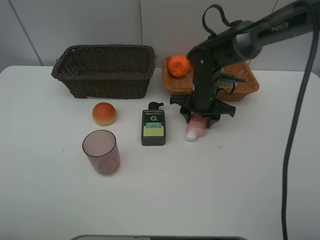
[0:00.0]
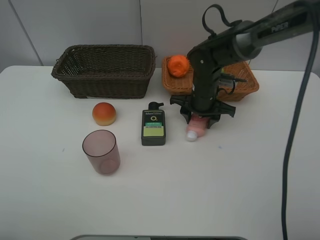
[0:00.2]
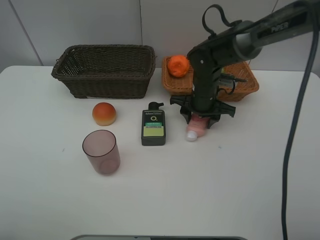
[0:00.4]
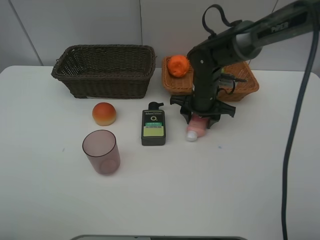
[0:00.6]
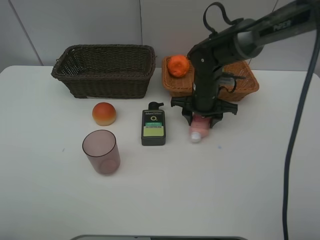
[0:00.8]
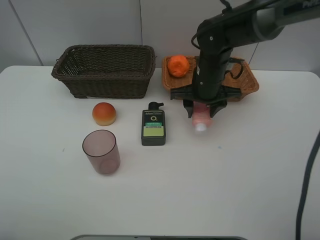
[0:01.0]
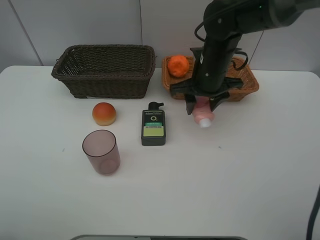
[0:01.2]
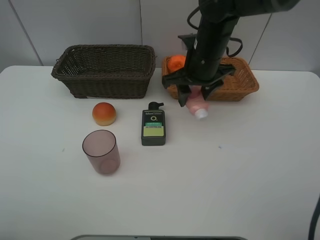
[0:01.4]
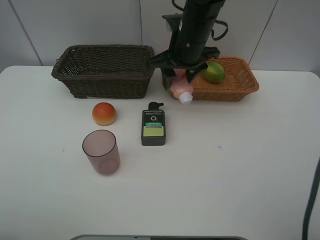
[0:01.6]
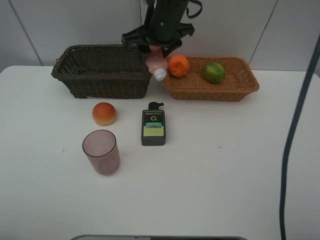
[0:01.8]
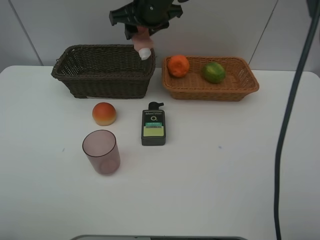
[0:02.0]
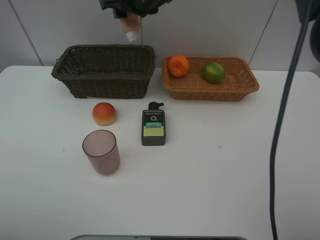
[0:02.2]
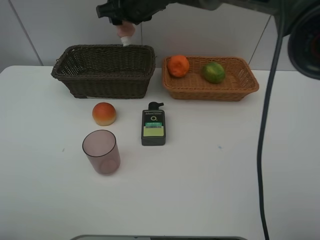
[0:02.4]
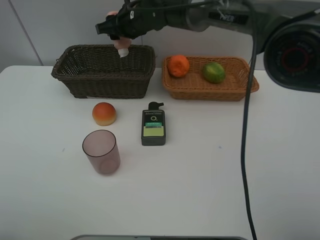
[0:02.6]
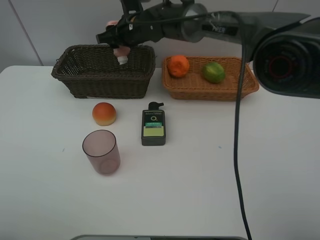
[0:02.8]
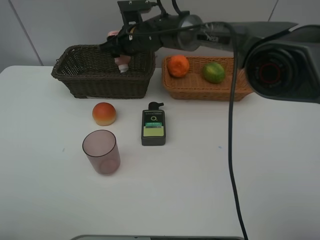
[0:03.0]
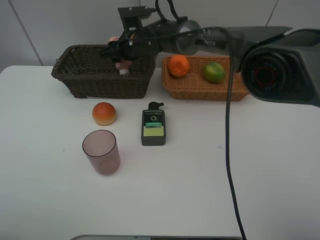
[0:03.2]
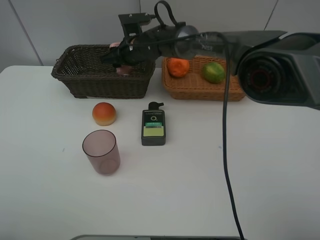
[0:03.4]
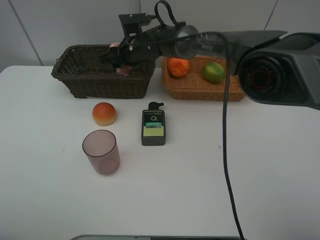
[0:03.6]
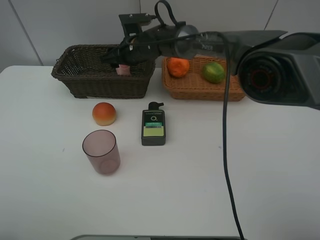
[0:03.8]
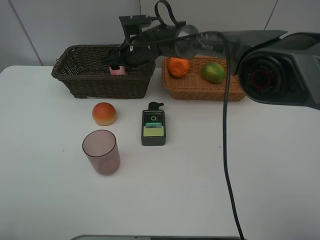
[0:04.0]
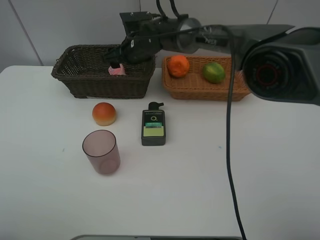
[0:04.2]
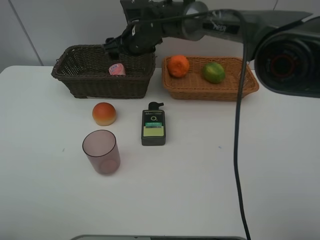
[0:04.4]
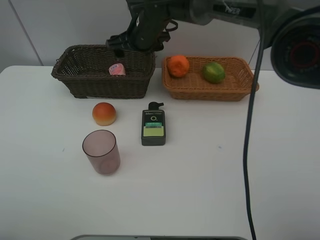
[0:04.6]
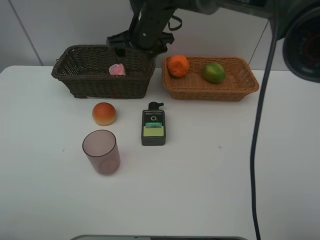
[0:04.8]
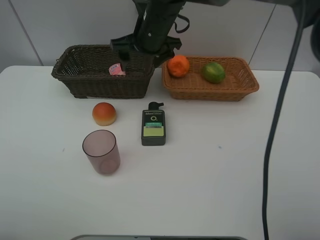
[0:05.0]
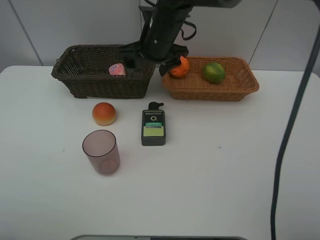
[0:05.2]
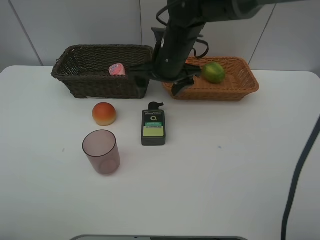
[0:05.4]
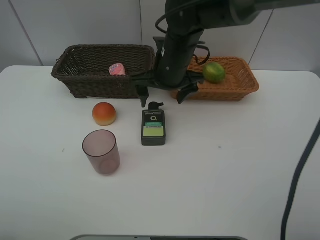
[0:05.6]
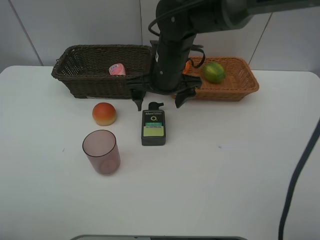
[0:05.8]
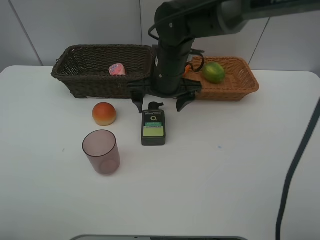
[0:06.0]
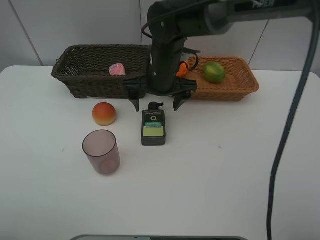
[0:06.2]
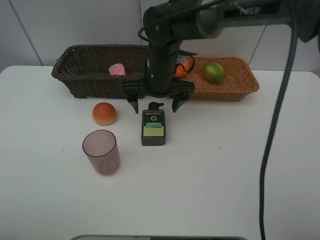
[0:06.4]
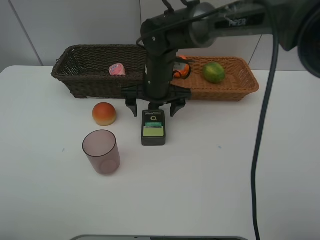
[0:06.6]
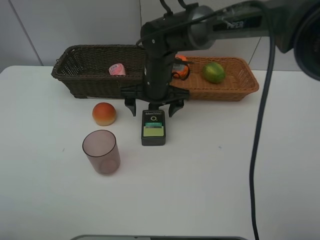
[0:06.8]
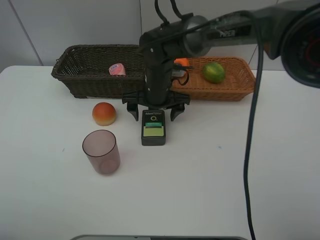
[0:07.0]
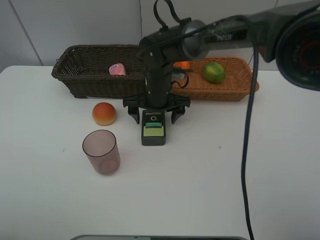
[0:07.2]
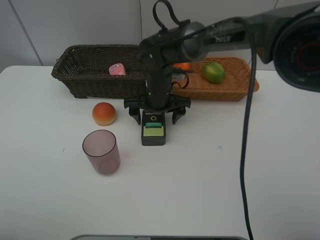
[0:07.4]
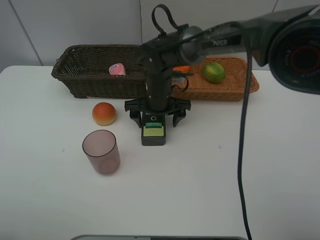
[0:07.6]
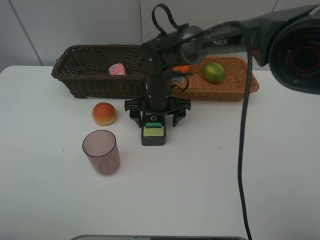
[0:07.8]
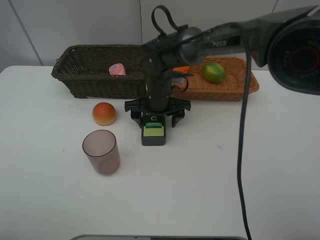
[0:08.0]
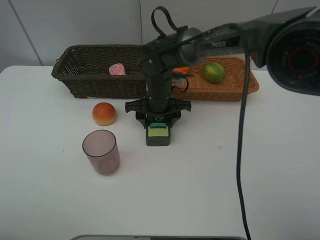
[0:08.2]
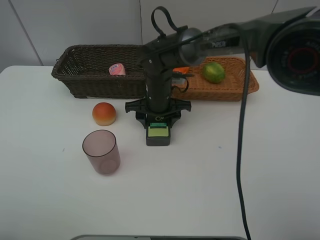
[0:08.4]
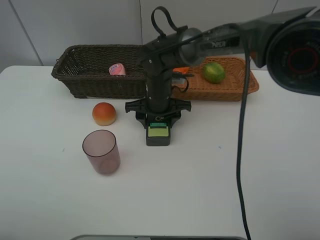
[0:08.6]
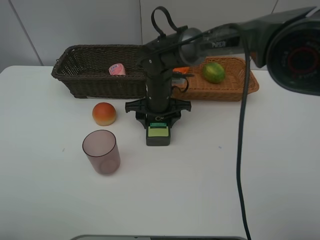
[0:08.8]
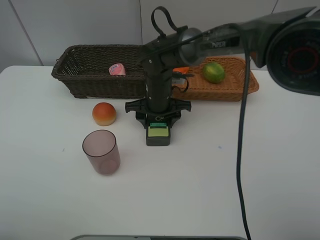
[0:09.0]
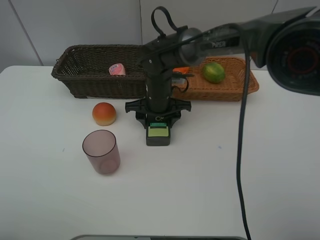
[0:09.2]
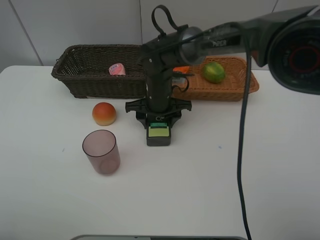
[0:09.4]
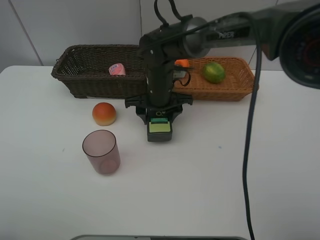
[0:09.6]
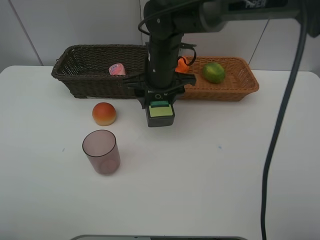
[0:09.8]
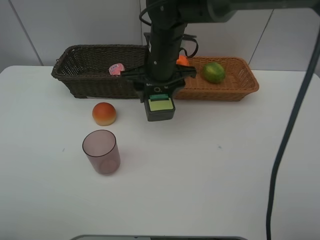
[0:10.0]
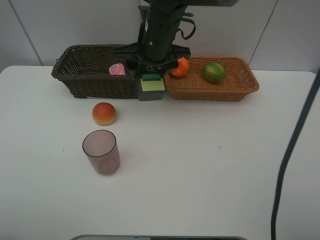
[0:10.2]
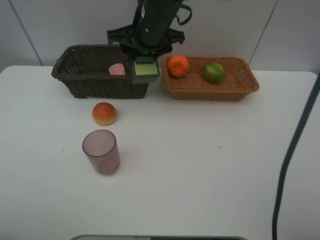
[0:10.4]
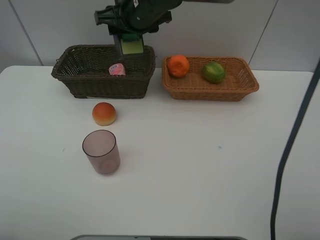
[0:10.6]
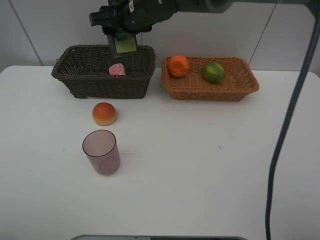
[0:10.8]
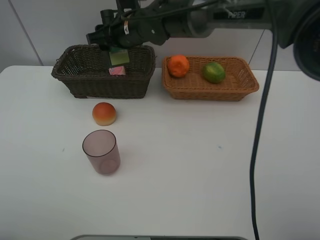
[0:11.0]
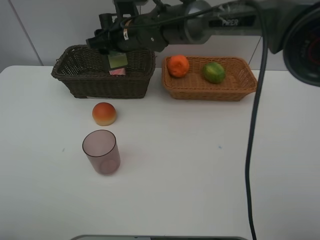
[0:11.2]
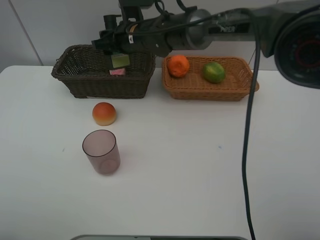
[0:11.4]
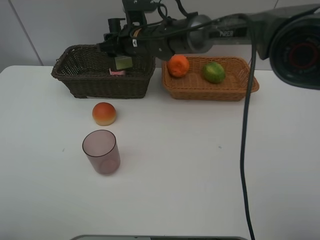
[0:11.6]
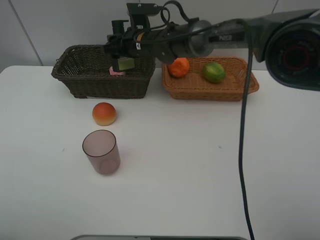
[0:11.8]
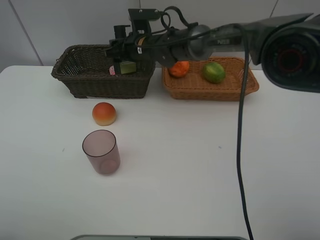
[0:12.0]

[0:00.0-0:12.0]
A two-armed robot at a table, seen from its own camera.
Task of the whole recording: place multiple objects separately in different baskets.
0:00.0 to 0:01.6: The right gripper heads upward and to the left, covering about 15 cm.
0:01.6 to 0:03.0: The right gripper travels to the left, forward and downward by approximately 15 cm.
0:03.0 to 0:04.4: The right gripper opens its fingers.
0:04.4 to 0:06.0: The right gripper heads backward and to the right, covering approximately 15 cm.
0:06.0 to 0:07.6: The right gripper travels downward by roughly 5 cm.
0:07.6 to 0:09.0: The right gripper closes up.
0:09.0 to 0:10.4: The right gripper travels upward by approximately 15 cm.
0:10.4 to 0:12.0: The right gripper moves downward and forward, approximately 15 cm.

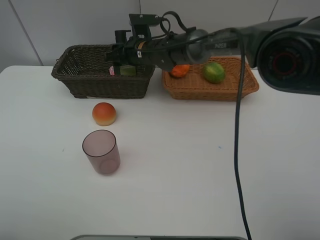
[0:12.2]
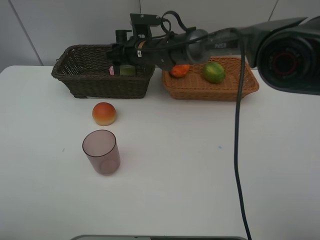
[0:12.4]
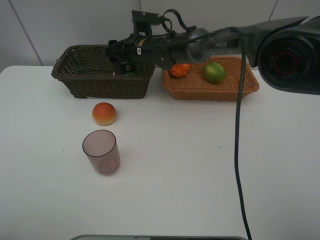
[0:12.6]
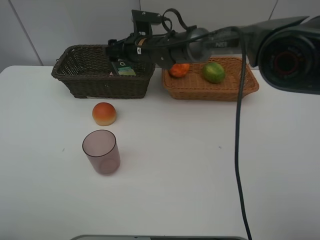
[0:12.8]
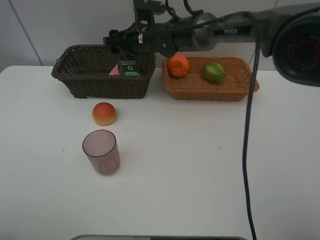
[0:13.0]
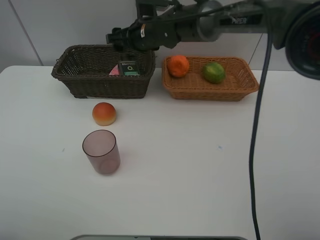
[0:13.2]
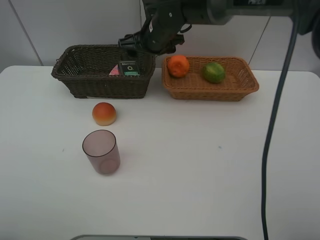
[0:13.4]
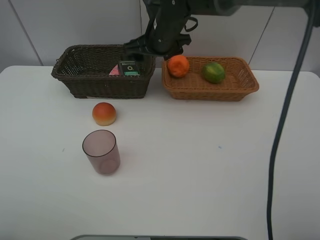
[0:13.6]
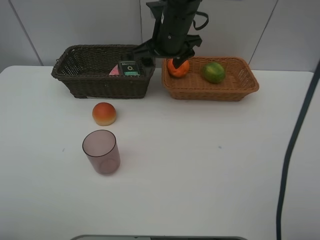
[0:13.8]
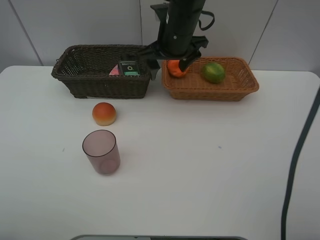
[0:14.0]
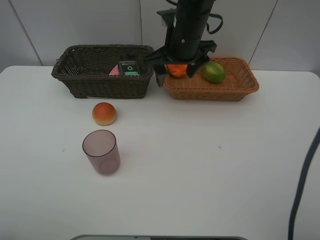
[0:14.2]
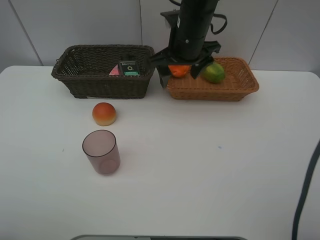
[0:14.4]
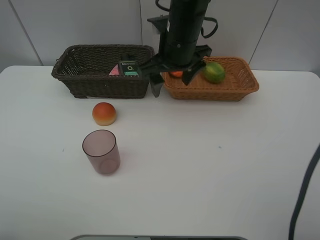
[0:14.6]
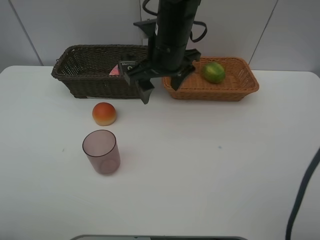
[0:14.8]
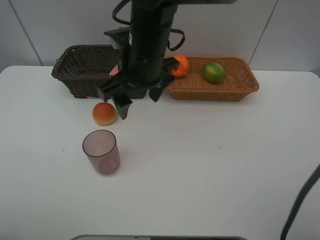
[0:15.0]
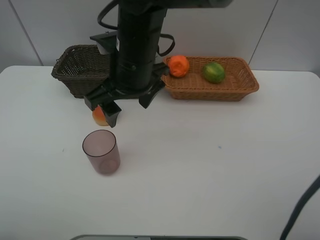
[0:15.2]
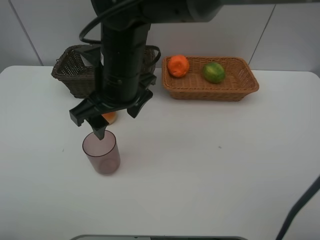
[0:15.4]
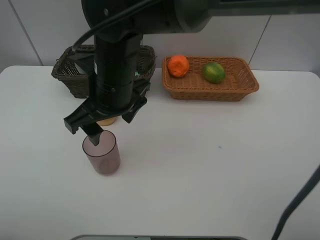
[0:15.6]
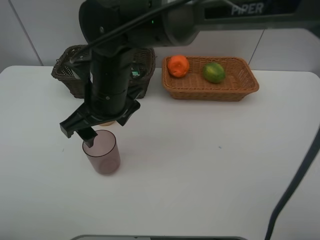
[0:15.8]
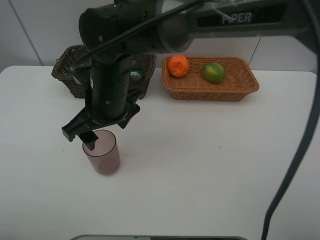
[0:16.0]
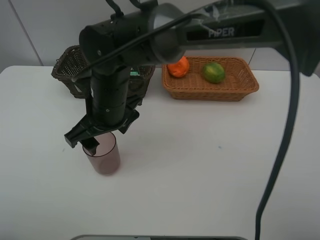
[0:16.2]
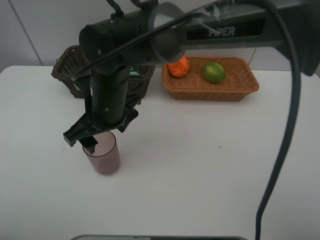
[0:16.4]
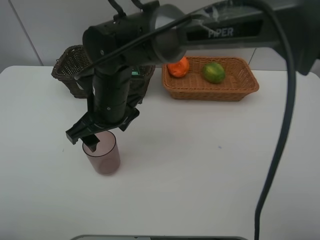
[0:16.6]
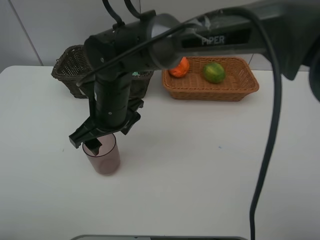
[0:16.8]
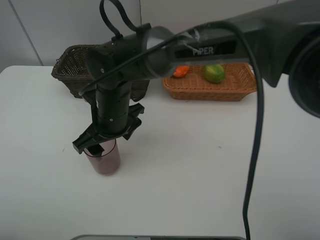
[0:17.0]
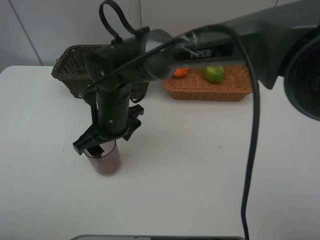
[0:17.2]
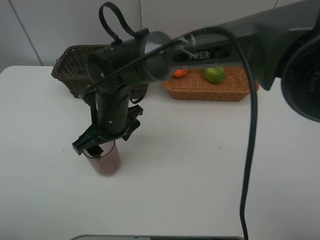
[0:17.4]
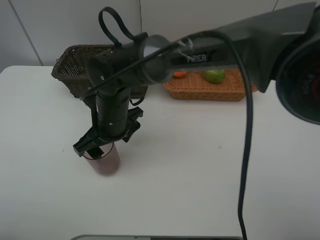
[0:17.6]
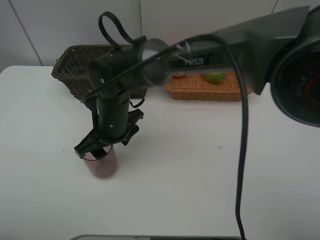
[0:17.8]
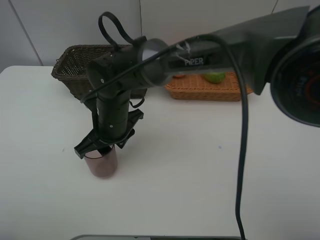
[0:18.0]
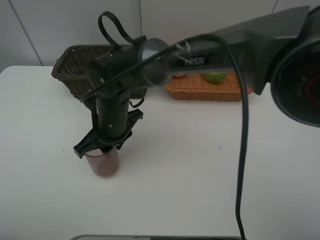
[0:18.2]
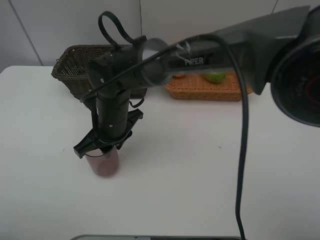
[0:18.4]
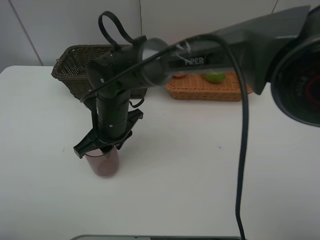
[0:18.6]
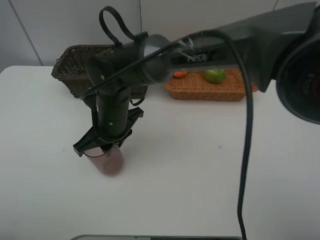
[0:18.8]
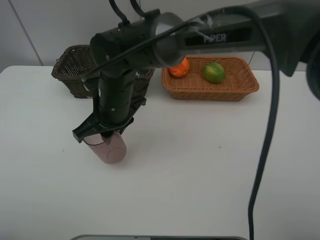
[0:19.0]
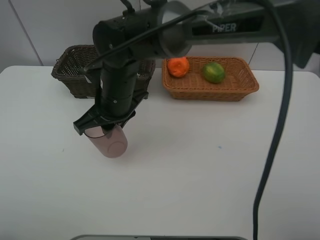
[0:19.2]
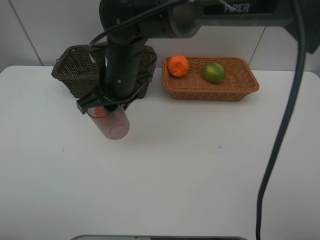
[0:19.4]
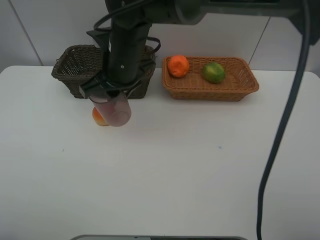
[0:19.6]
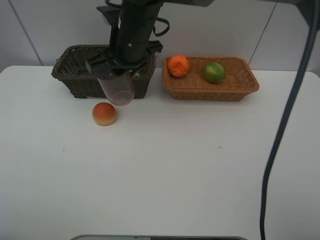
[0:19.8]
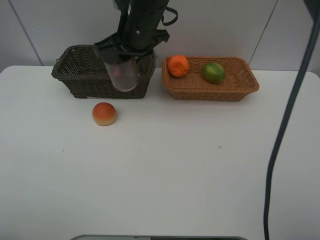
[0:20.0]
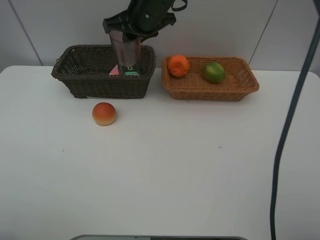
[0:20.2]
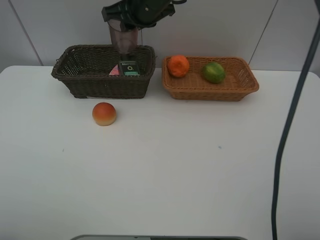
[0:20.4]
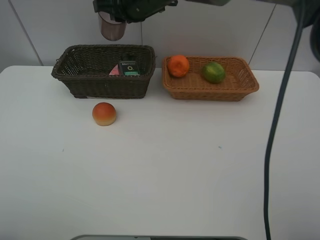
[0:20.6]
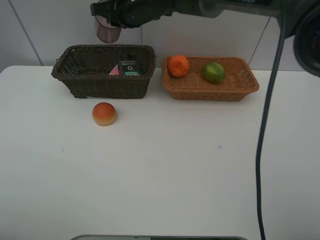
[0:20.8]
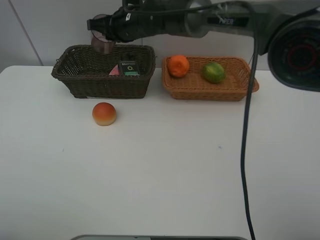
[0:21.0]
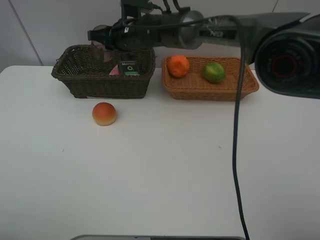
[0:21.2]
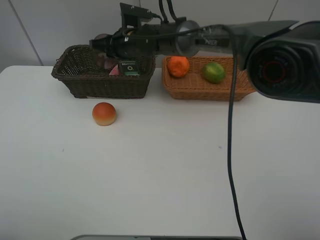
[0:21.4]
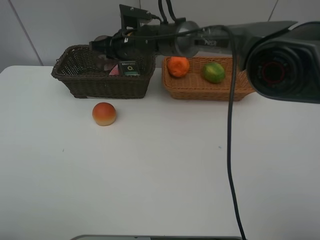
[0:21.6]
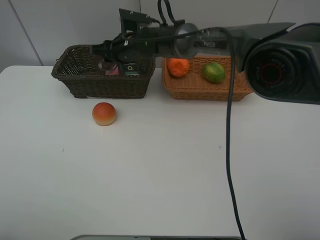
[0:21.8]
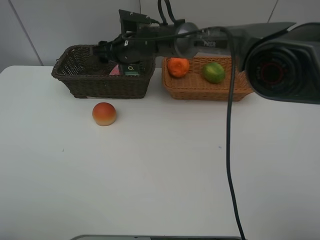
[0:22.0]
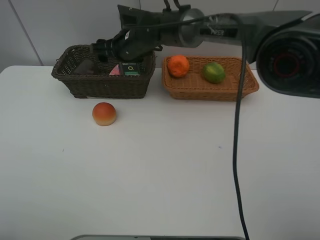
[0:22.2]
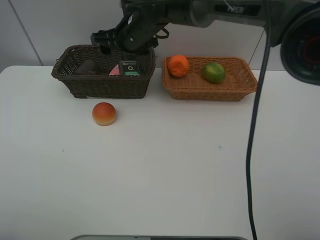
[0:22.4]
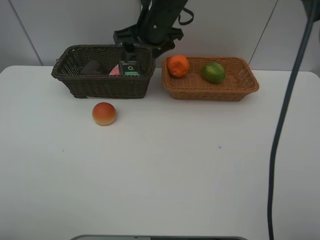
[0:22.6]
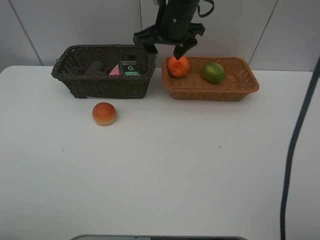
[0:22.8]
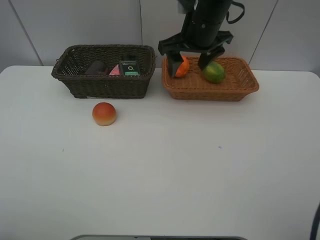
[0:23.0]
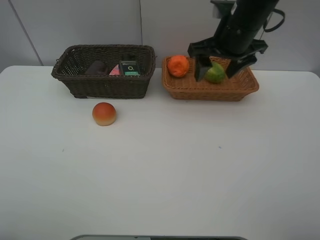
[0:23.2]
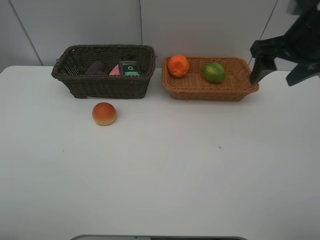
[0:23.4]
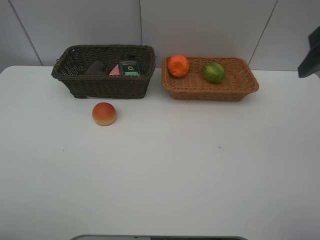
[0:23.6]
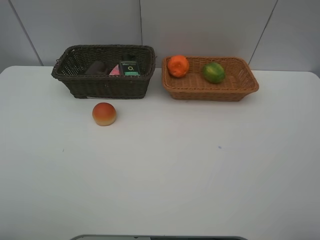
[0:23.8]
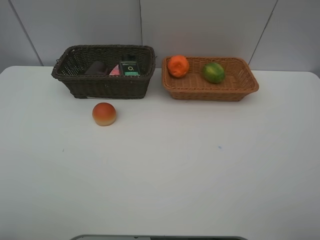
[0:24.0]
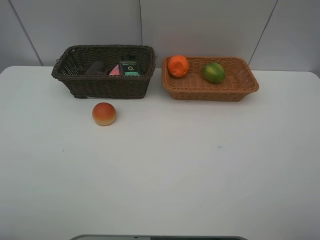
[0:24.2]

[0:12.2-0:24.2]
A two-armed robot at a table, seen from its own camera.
Task of the whole recording: place multiple objects separately in different baskets.
0:12.2 to 0:13.8: The right gripper travels upward, backward and to the right by roughly 15 cm.
0:13.8 to 0:15.2: The right gripper is displaced backward and to the left by approximately 15 cm.
0:15.2 to 0:16.6: The right gripper heads downward, covering some 5 cm.
0:16.6 to 0:18.2: The right gripper closes.
0:18.2 to 0:19.8: The right gripper heads upward and forward, covering roughly 15 cm.
0:19.8 to 0:21.2: The right gripper moves forward and downward, some 10 cm.
0:21.2 to 0:22.6: The right gripper shifts some 10 cm to the right and upward, and opens up.
0:22.6 to 0:24.2: The right gripper is displaced backward and to the right by roughly 50 cm.
